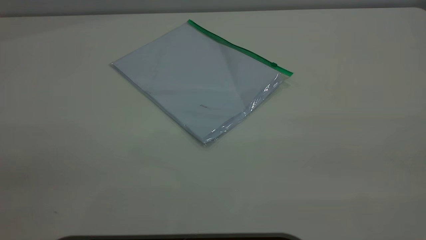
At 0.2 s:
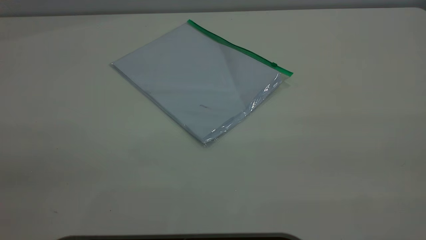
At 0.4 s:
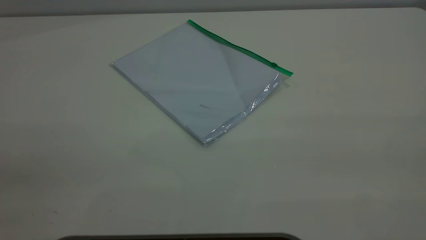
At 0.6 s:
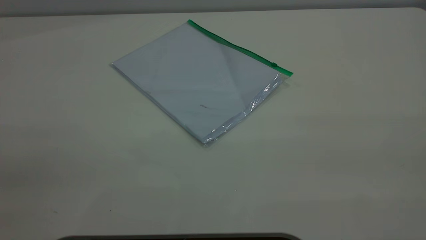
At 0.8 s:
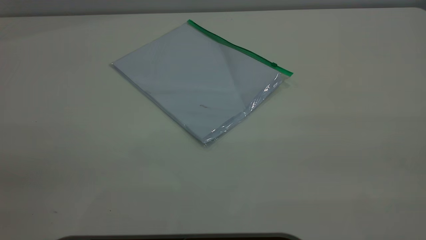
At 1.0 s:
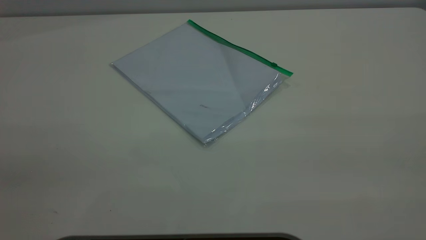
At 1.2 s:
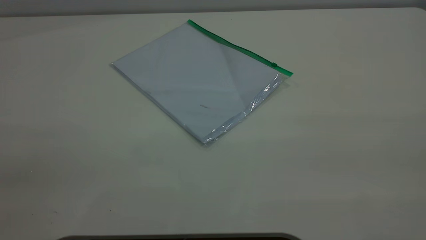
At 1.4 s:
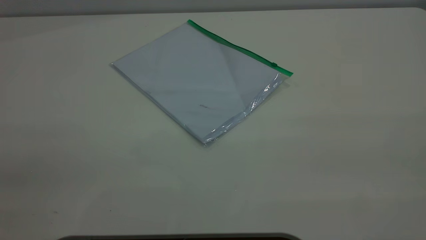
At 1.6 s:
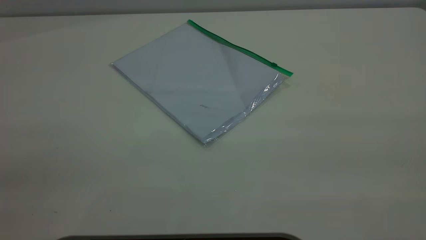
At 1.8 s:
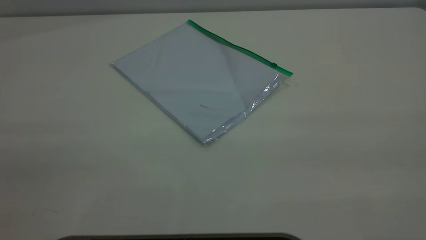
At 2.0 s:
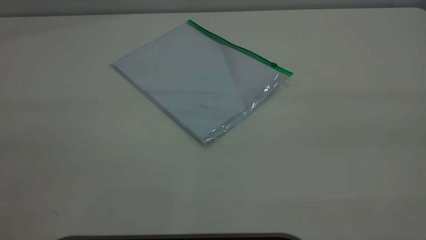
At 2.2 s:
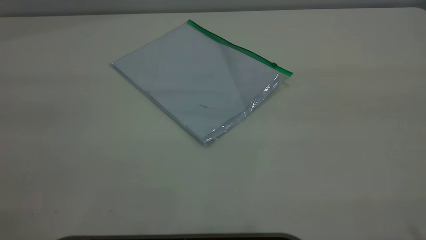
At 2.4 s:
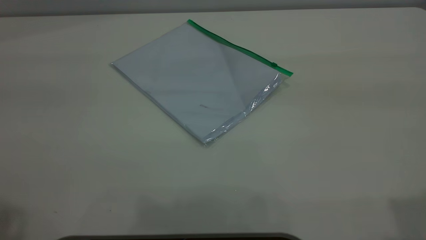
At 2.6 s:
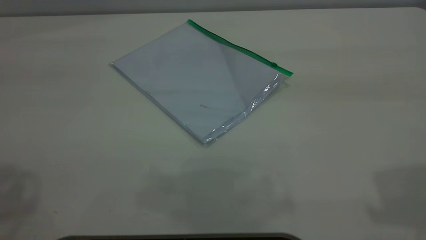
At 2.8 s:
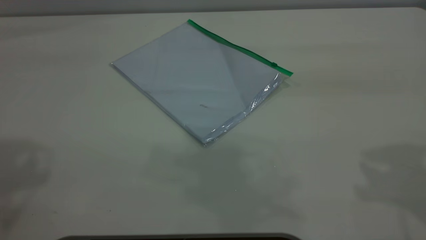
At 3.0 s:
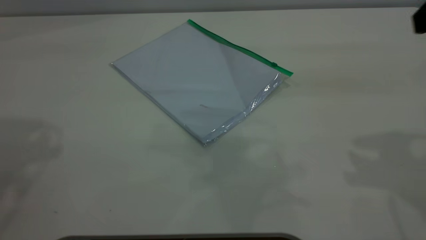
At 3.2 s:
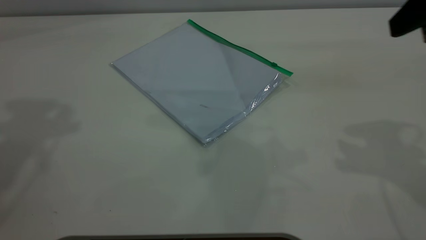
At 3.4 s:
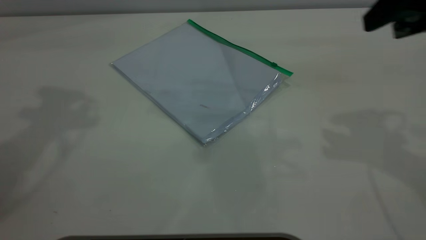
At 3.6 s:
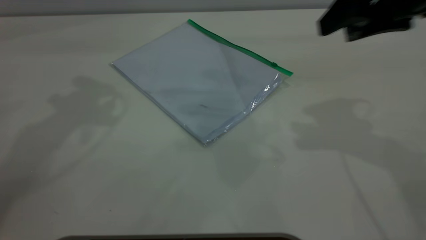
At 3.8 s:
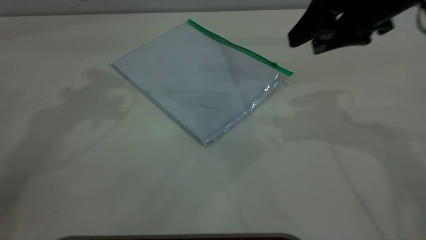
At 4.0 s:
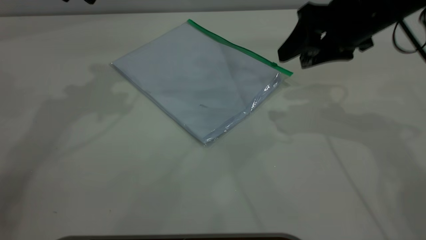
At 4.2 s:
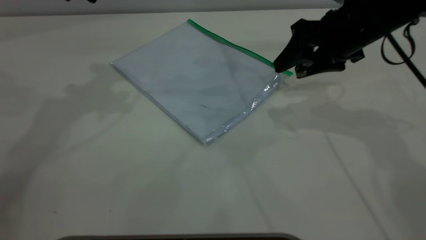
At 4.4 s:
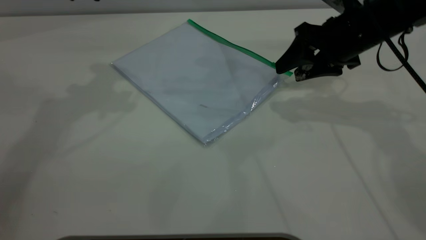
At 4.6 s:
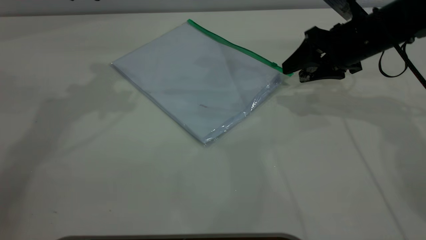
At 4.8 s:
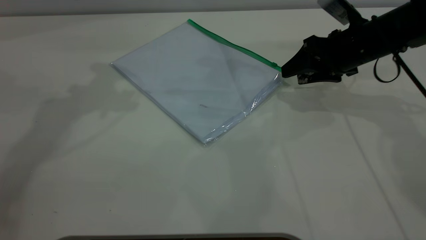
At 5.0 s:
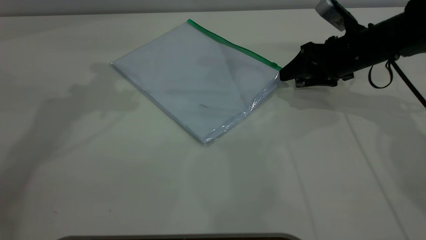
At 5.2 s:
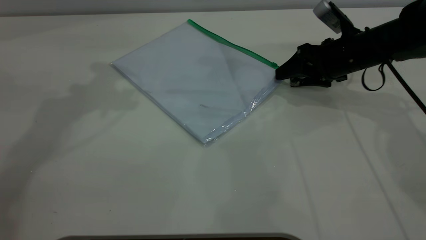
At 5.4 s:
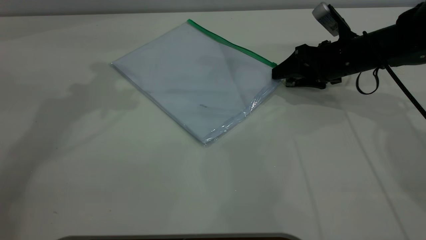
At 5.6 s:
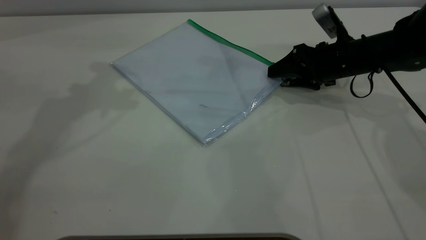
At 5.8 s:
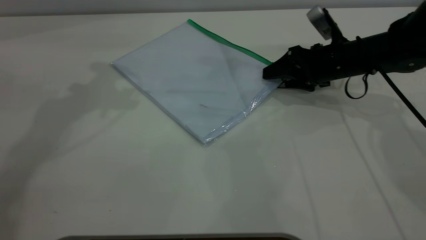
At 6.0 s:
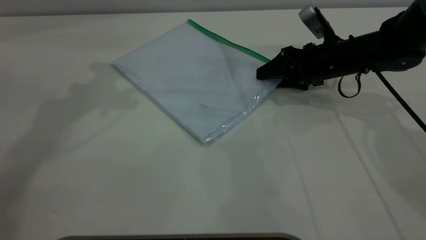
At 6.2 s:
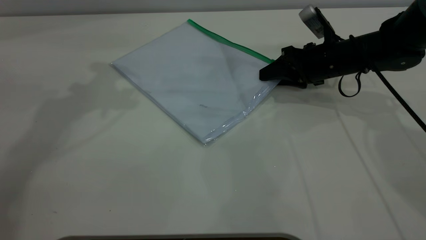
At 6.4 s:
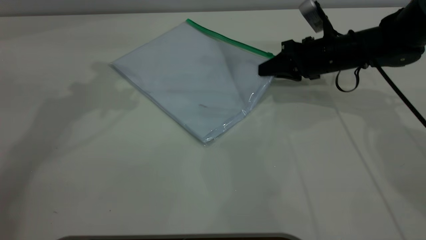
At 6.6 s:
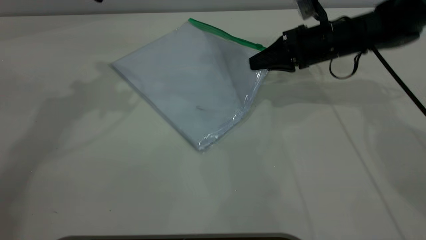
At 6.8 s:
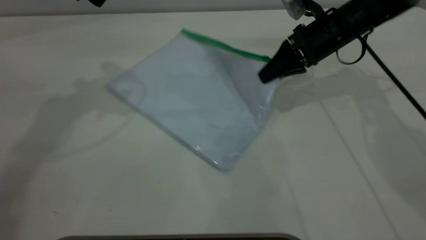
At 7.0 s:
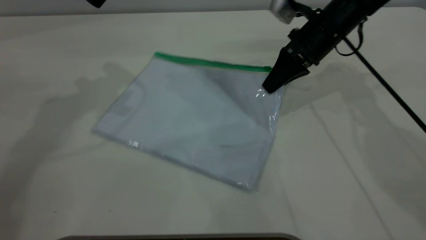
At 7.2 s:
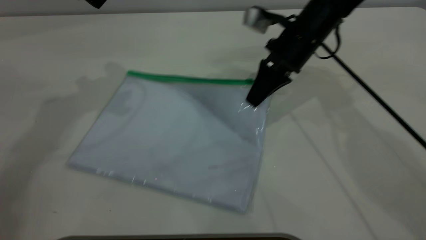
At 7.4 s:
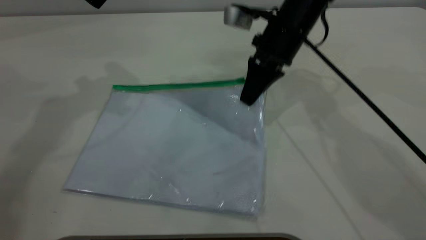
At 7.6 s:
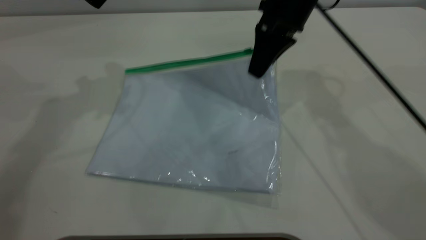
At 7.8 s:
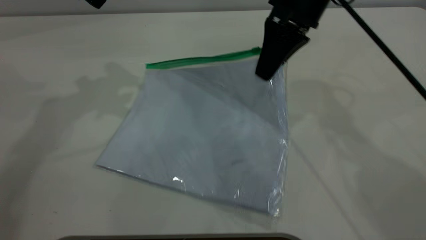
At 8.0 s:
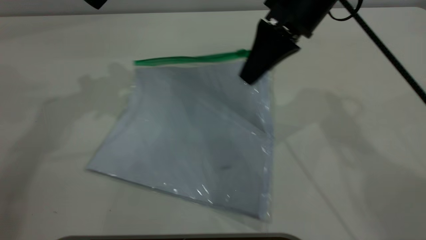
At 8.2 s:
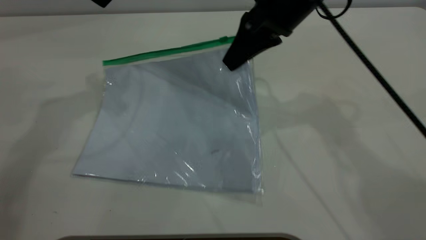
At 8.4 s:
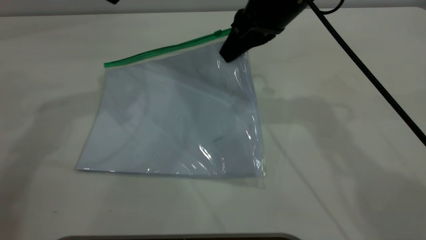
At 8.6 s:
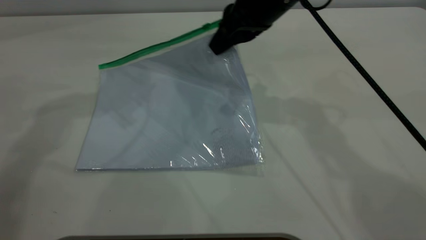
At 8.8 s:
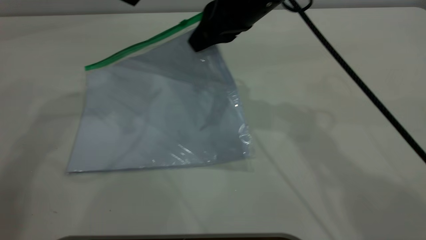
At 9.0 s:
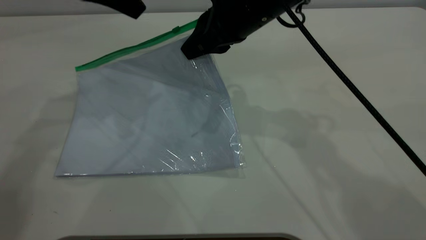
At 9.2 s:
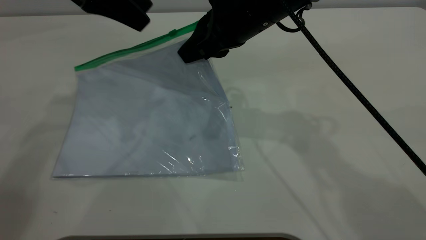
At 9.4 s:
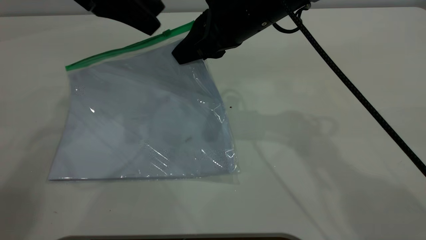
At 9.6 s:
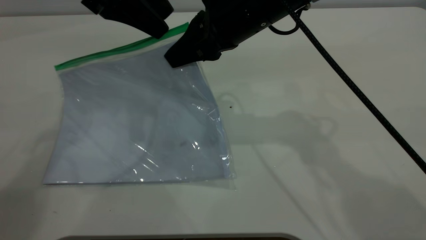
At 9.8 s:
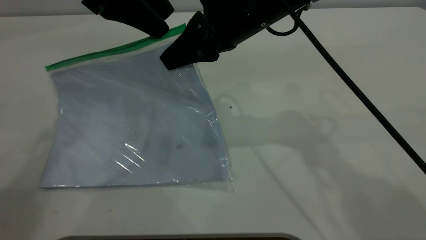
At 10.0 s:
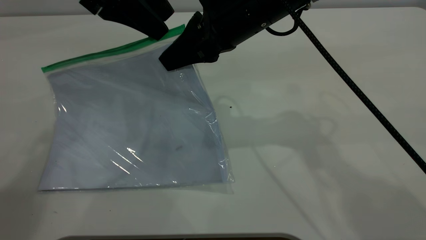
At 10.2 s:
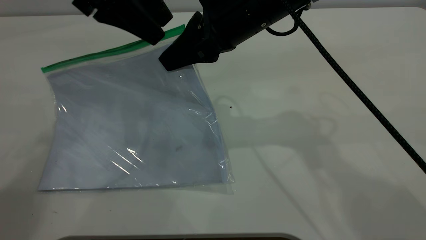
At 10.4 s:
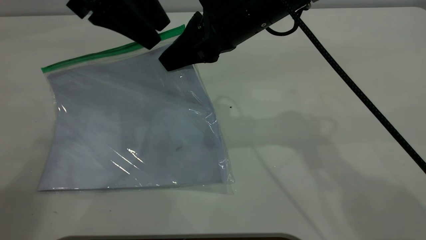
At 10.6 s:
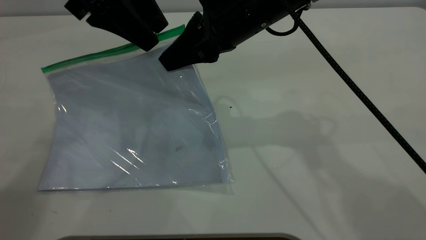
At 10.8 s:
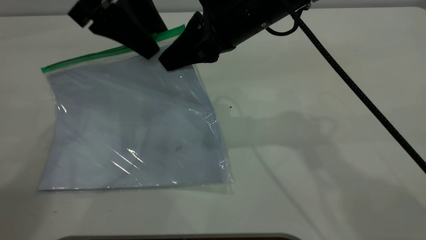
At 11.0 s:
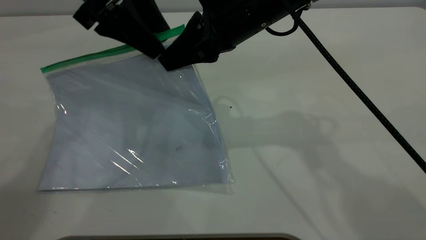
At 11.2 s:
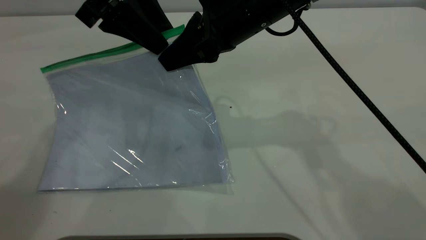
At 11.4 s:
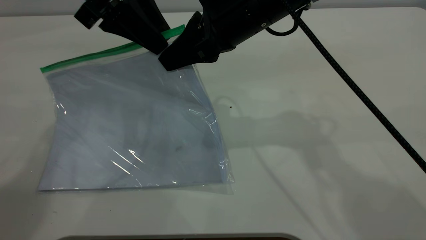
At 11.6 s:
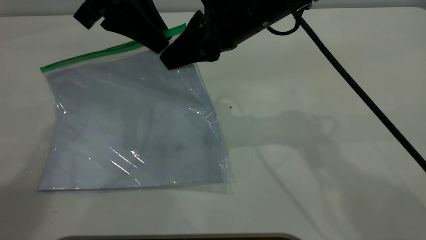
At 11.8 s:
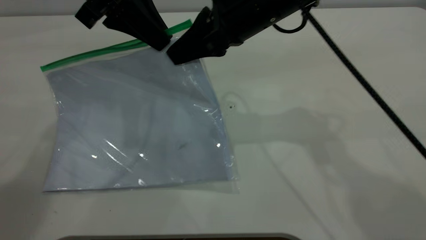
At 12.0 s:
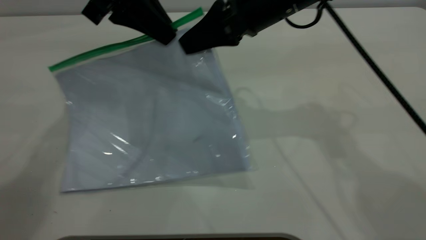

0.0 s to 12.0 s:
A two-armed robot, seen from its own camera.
Step, 0.0 to 6.2 s: Pick up the transparent plastic bag with the right gripper.
0.0 to 1.6 s: Both grippers stay about where they are.
3.0 to 4.4 s: The right gripper is displaced downward and forward by some 25 cm.
4.4 to 6.0 s: The right gripper travels downward by some 10 cm.
6.0 to 7.6 s: The right gripper heads upward and to the left, covering approximately 20 cm, and closes.
7.6 to 9.0 s: The right gripper goes roughly 10 cm to the left and backward.
9.0 to 10.4 s: There are only small adjustments of the grippers.
10.4 to 12.0 s: The left gripper closes.

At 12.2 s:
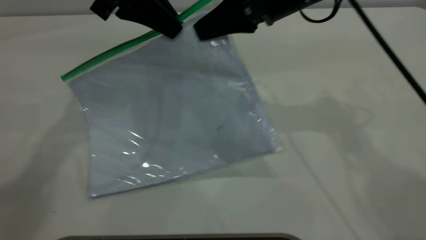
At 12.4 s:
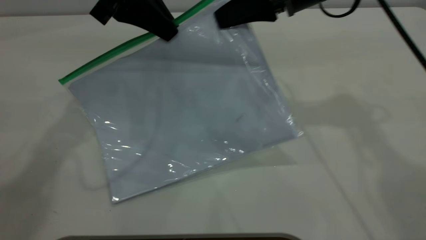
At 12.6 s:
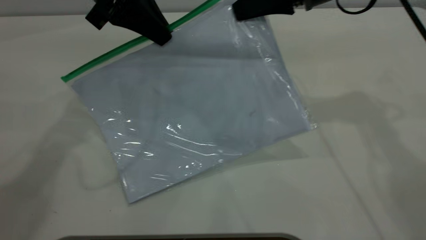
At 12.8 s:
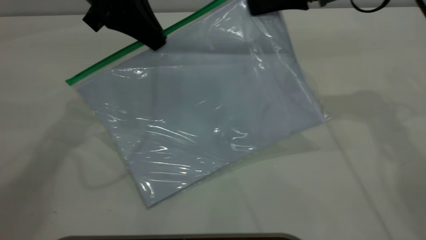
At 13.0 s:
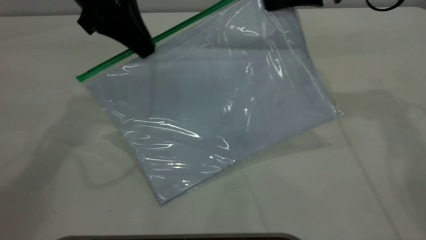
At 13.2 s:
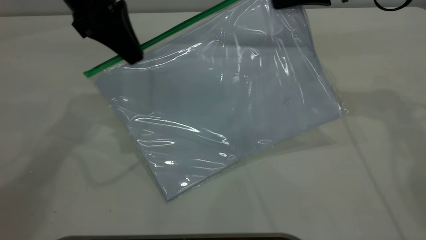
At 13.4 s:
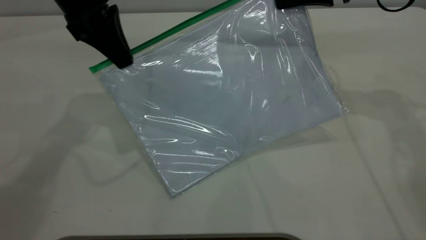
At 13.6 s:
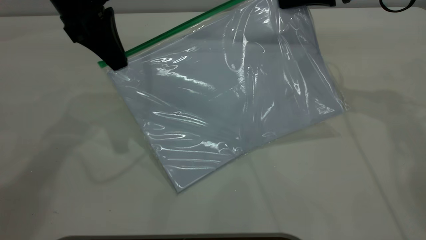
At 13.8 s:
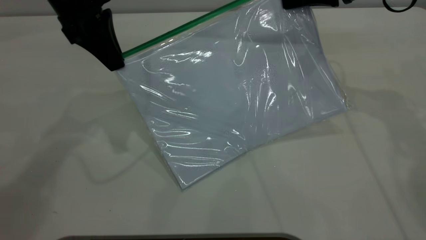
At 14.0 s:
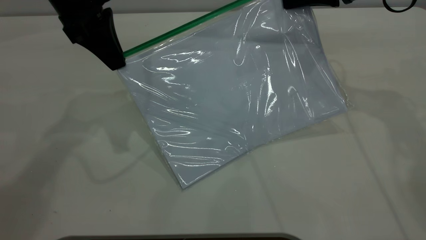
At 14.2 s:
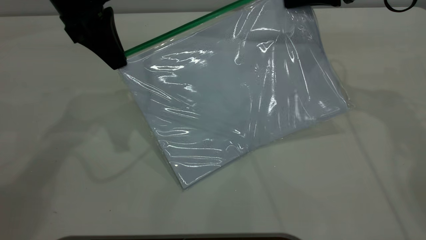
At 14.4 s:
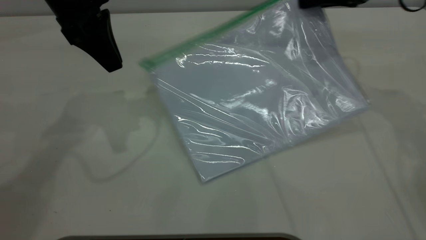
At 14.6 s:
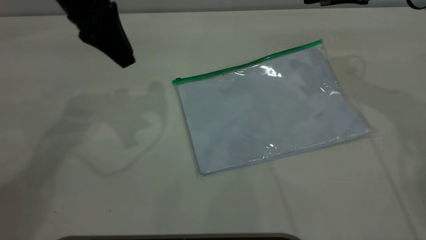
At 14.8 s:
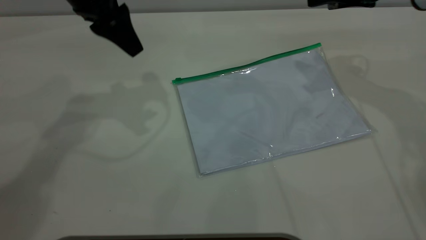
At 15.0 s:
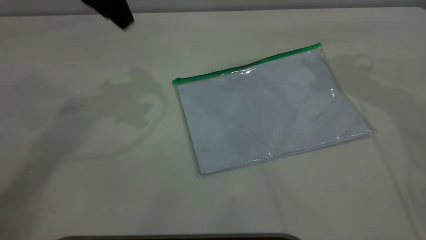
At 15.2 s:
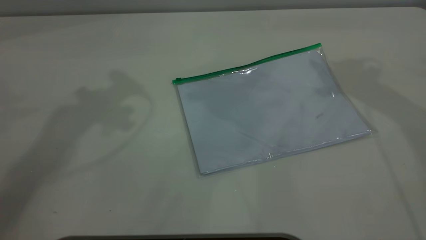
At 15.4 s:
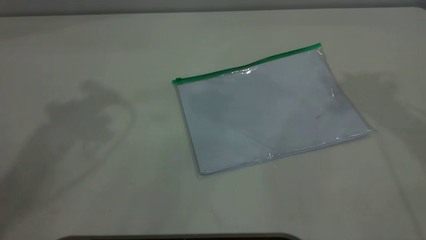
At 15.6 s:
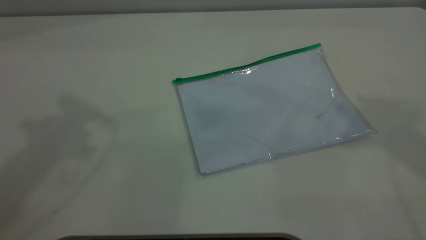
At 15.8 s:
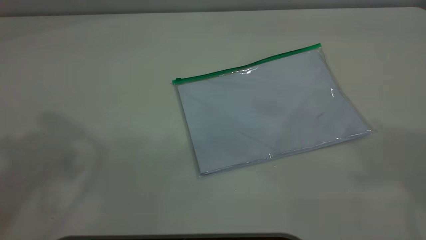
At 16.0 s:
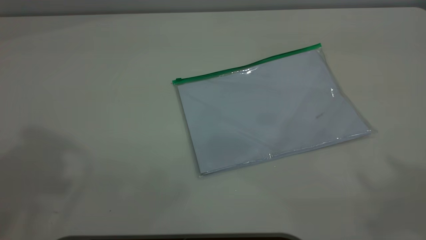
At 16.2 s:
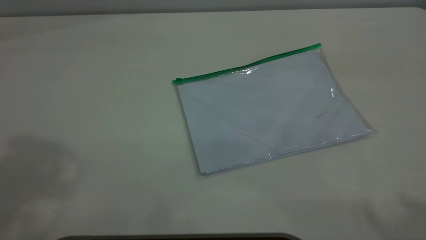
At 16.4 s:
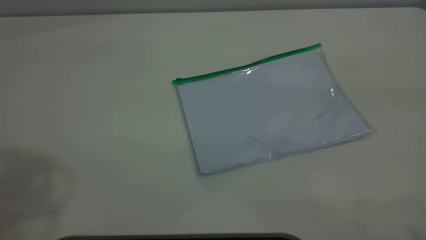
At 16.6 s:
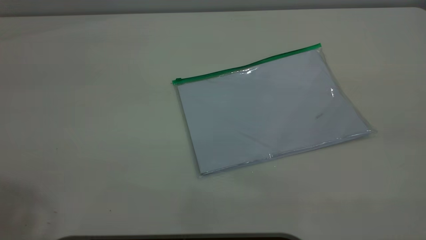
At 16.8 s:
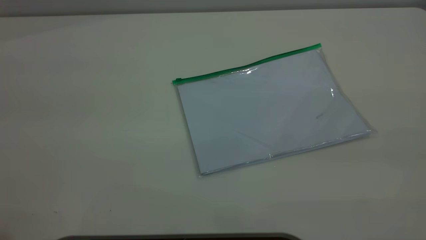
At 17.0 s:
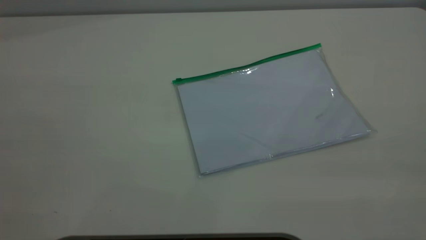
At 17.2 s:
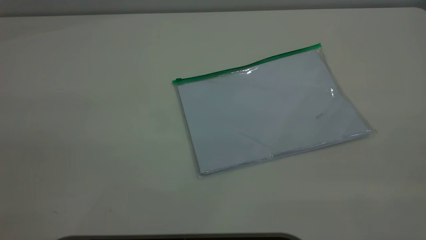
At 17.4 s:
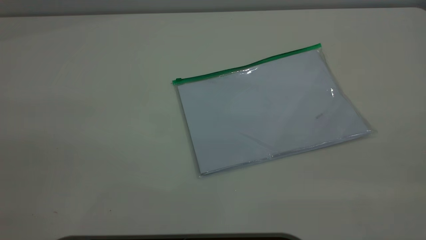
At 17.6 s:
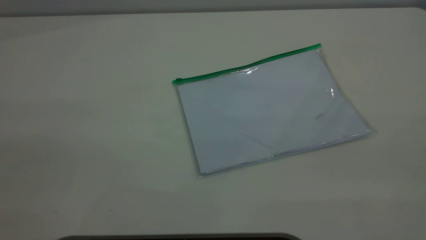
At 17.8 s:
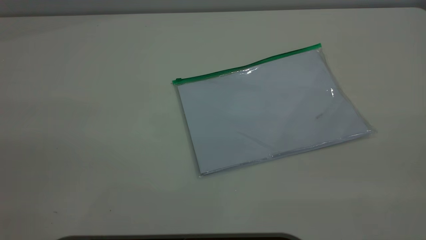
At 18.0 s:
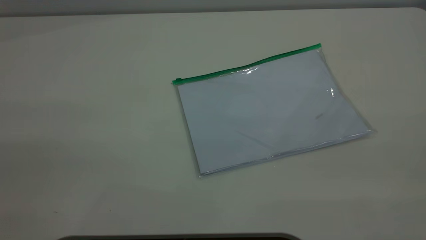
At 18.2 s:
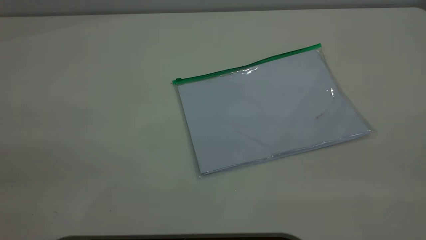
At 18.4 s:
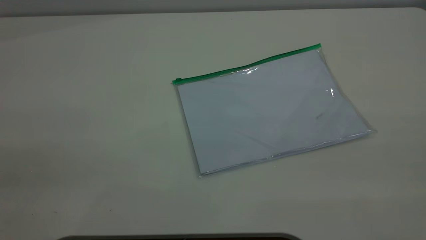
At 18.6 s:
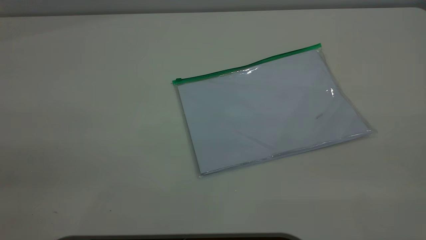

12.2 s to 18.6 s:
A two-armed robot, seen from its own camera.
Step, 12.2 to 14.2 s: Pulling up the zipper on the transparent plastic bag with the left gripper to close it.
Step, 14.4 to 14.6 s: Place the transparent plastic bag.
12.2 to 13.8 s: The right gripper goes about 10 cm to the right.
13.8 to 15.4 s: The grippers both shift upward by about 20 cm. The right gripper opens. The left gripper opens up.
